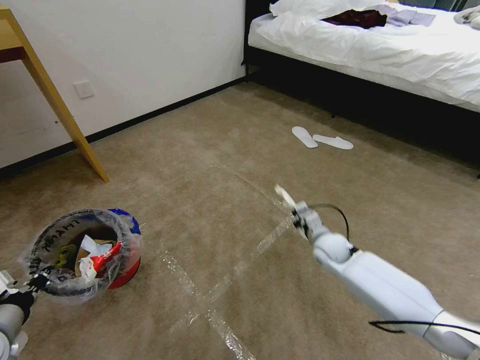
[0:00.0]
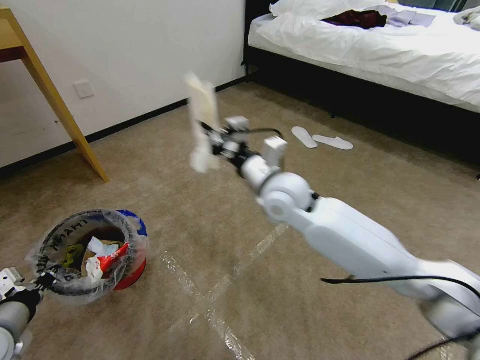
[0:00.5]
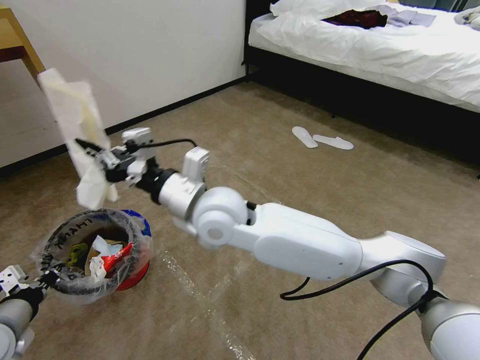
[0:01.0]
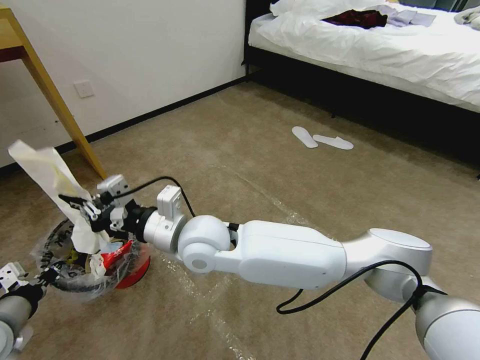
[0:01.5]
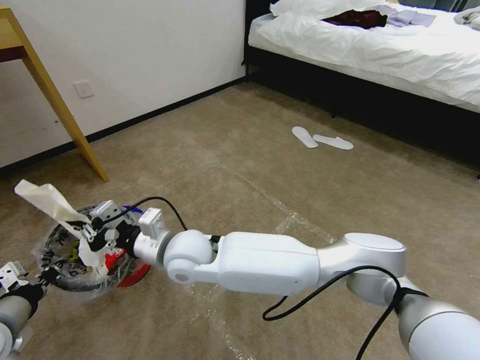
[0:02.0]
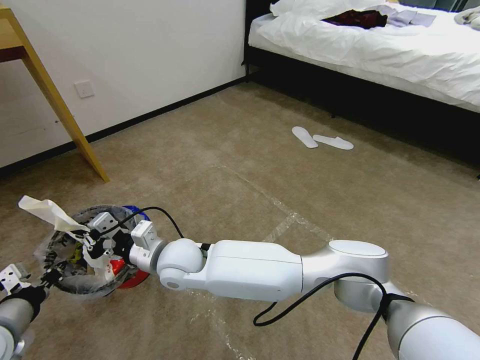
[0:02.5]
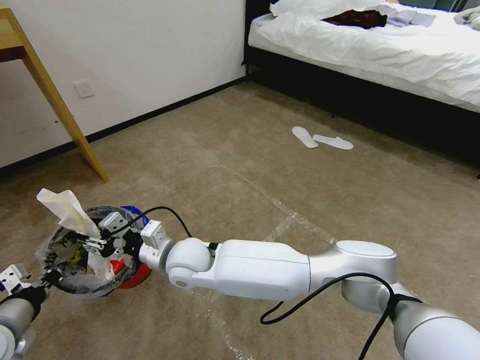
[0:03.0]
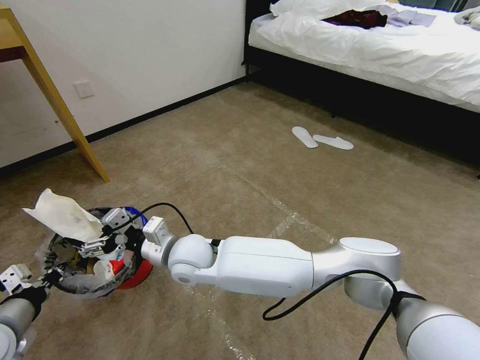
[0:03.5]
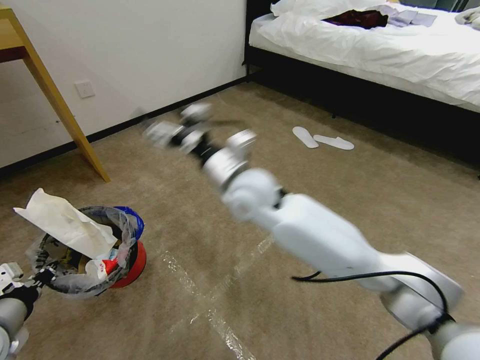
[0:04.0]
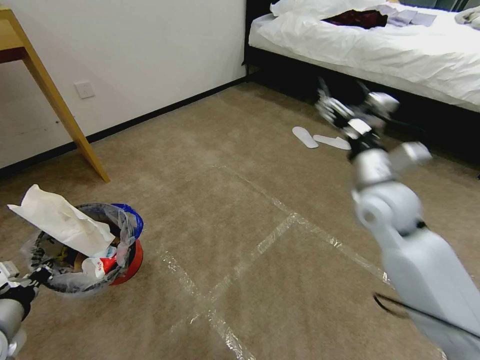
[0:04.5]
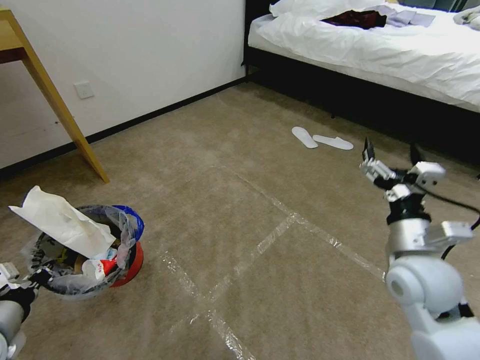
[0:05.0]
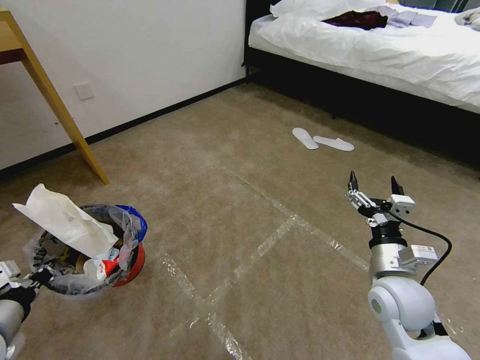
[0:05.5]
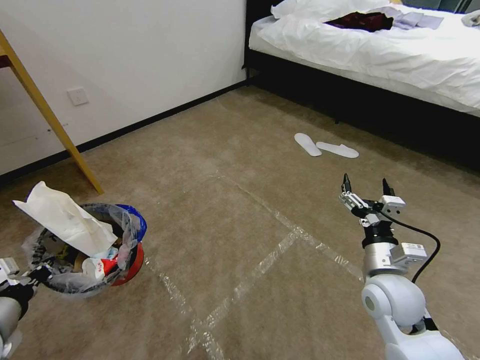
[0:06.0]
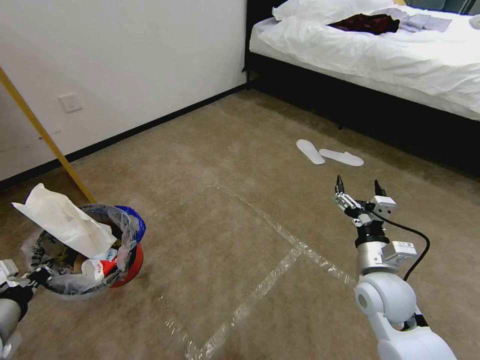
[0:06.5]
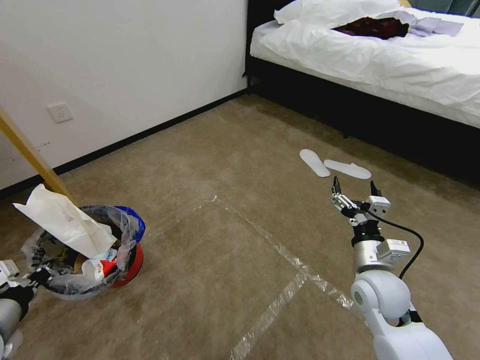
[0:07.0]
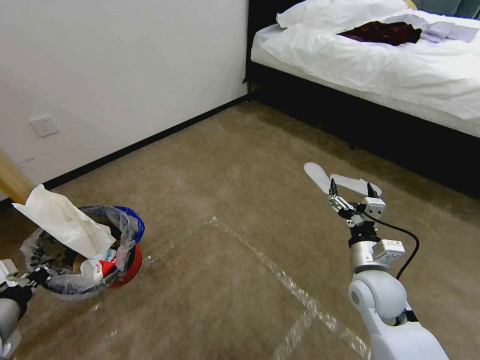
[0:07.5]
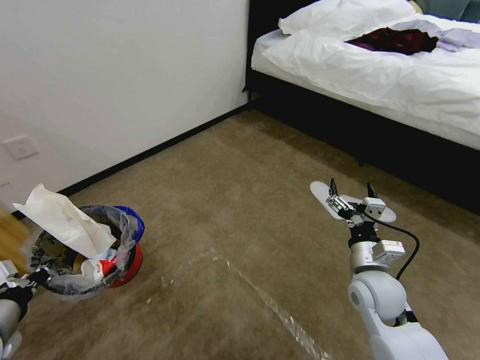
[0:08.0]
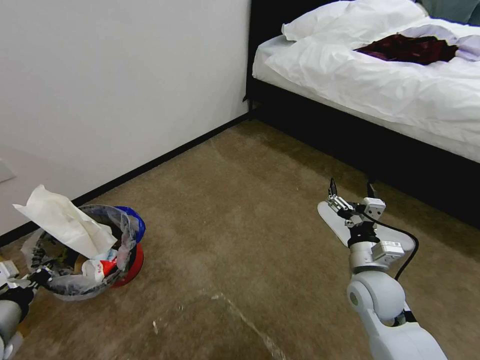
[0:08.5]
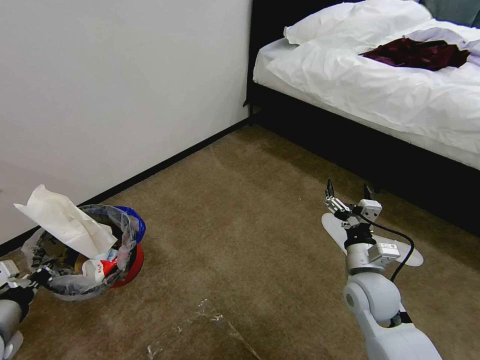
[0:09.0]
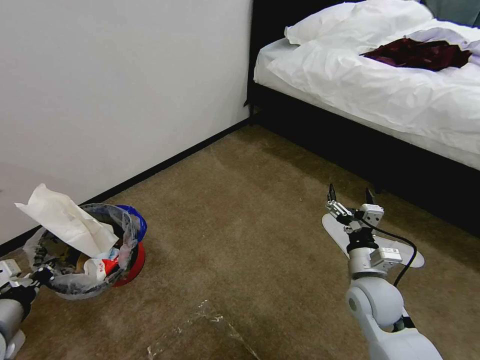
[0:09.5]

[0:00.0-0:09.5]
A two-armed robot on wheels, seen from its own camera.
Task of the whole recording: Pick up the trash bin and place the garbage on the floor into it.
0:00.0 to 0:02.0: The right gripper moves to the left and upward, about 40 cm.
0:02.0 to 0:04.0: The right gripper travels to the right, upward and forward by roughly 15 cm, and opens its fingers.
0:04.0 to 0:05.5: The right gripper goes about 35 cm to the right and backward.
